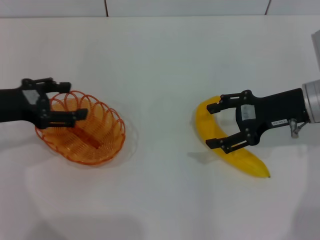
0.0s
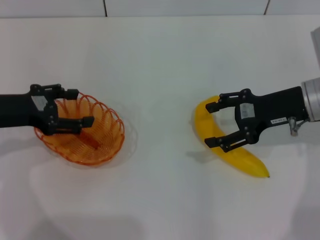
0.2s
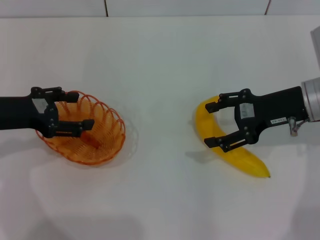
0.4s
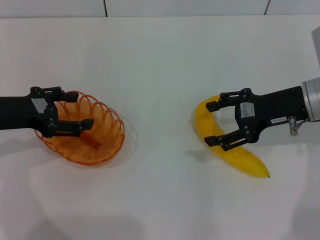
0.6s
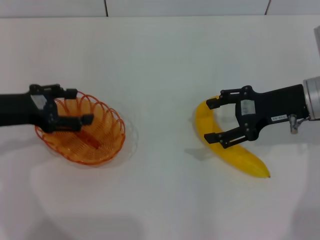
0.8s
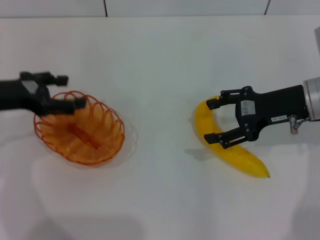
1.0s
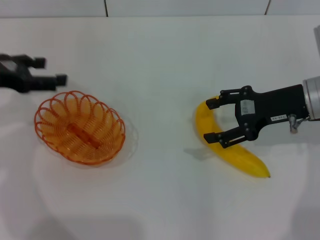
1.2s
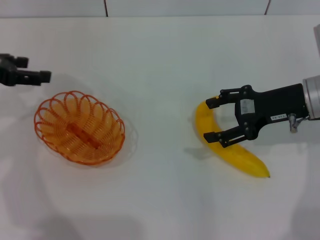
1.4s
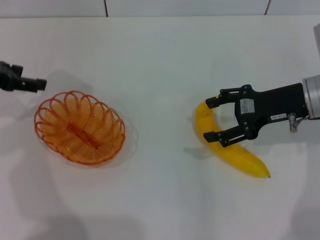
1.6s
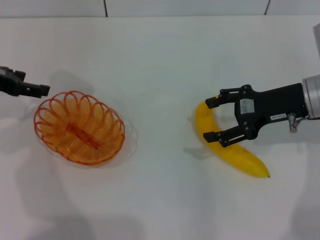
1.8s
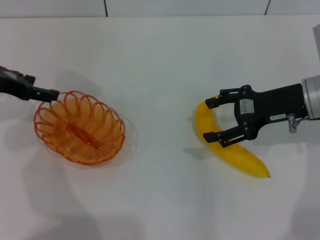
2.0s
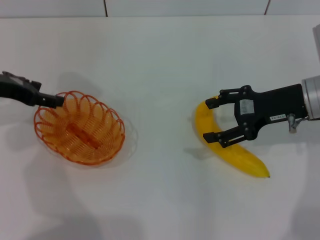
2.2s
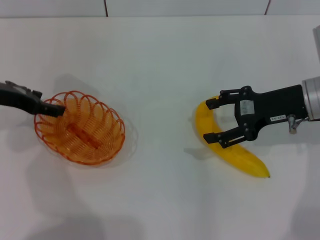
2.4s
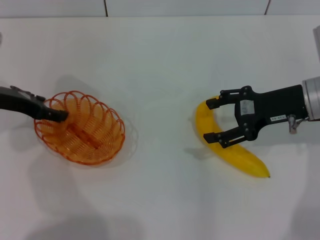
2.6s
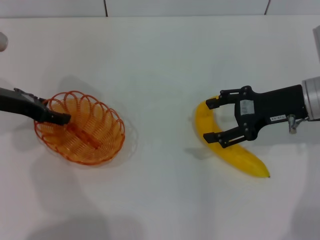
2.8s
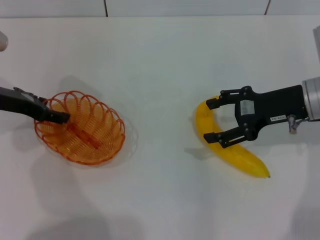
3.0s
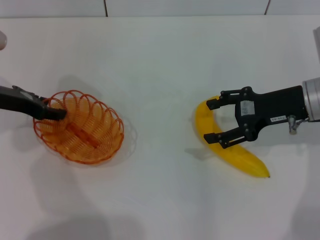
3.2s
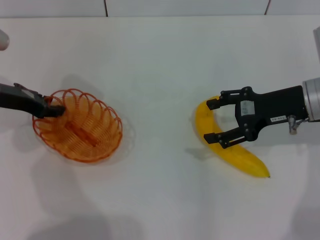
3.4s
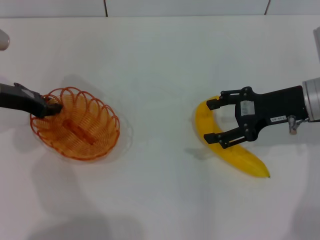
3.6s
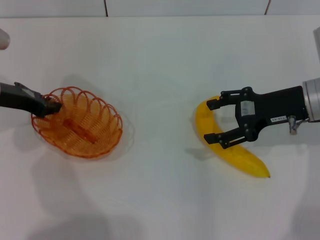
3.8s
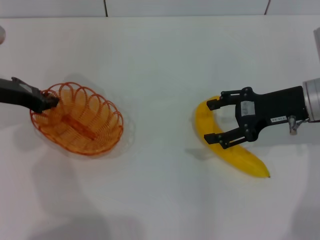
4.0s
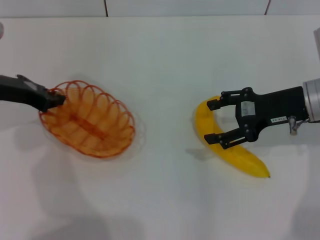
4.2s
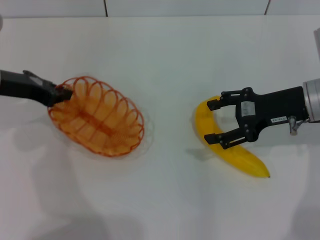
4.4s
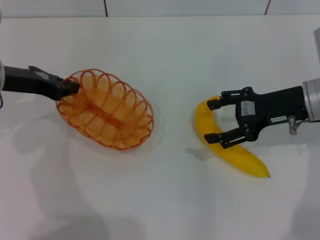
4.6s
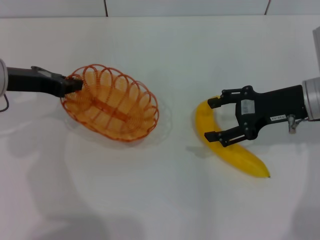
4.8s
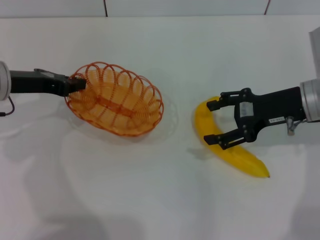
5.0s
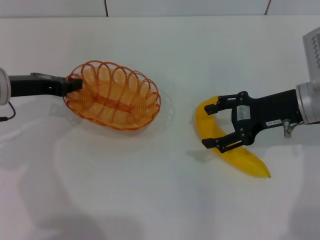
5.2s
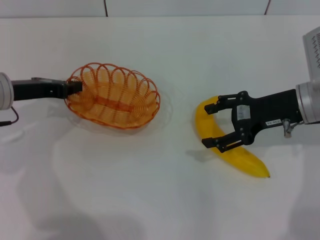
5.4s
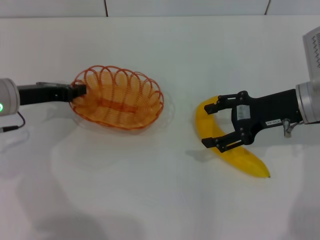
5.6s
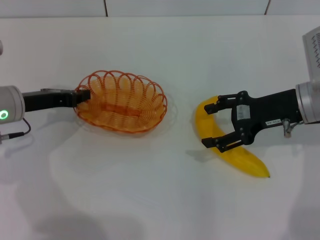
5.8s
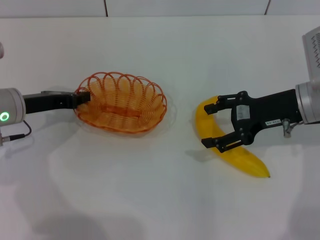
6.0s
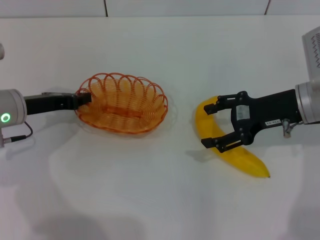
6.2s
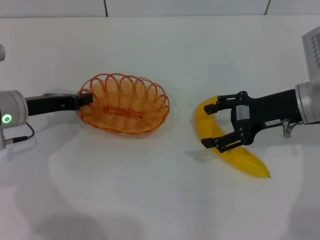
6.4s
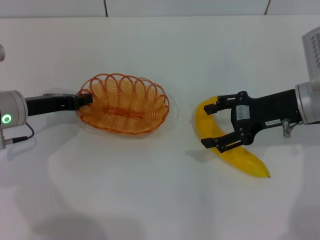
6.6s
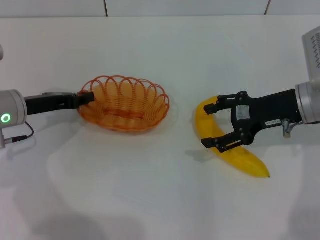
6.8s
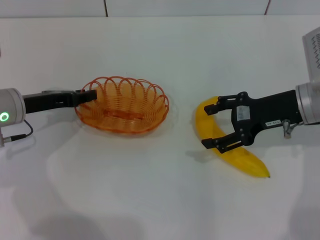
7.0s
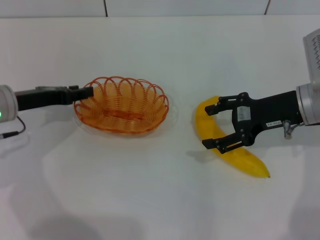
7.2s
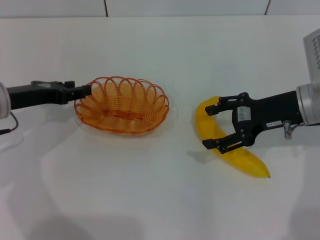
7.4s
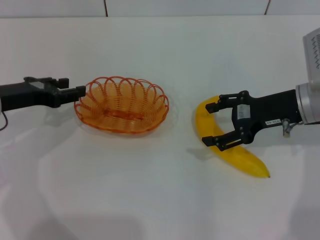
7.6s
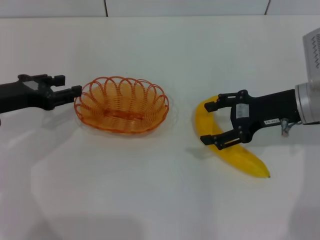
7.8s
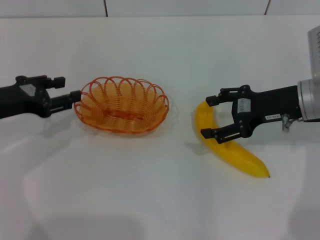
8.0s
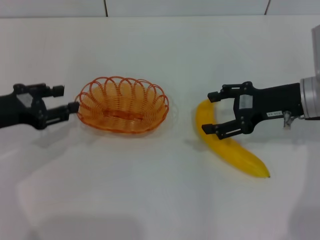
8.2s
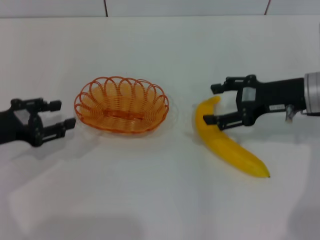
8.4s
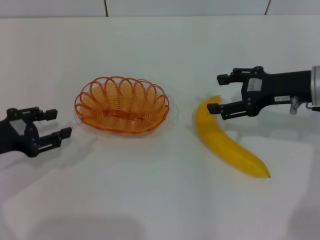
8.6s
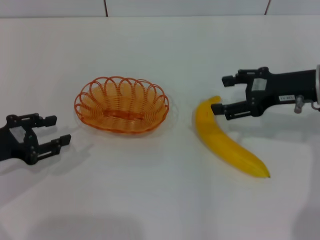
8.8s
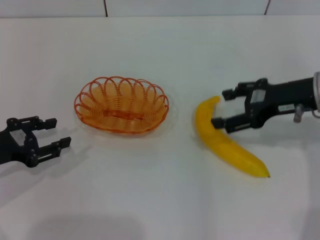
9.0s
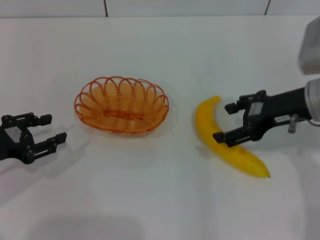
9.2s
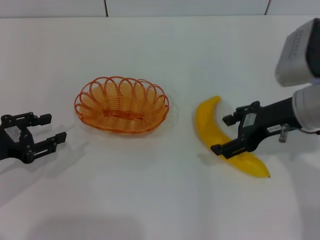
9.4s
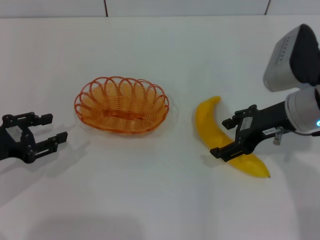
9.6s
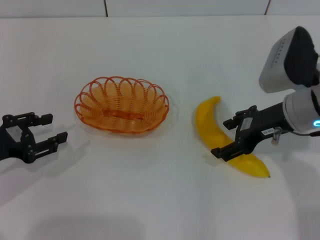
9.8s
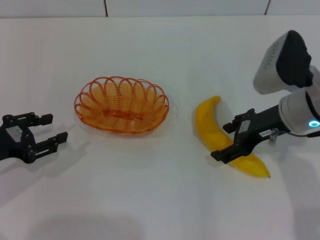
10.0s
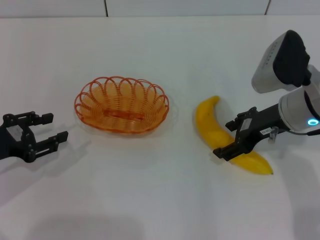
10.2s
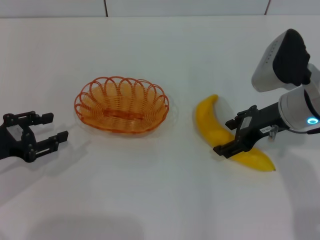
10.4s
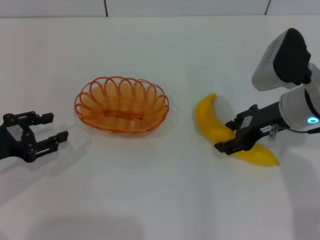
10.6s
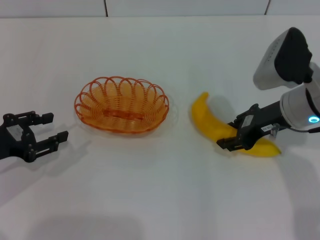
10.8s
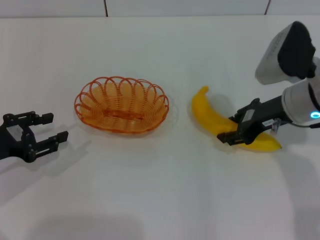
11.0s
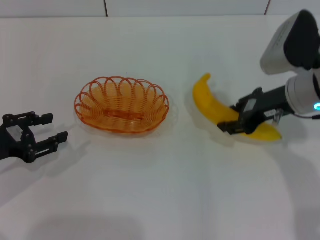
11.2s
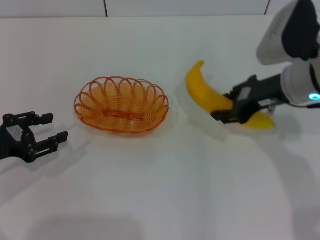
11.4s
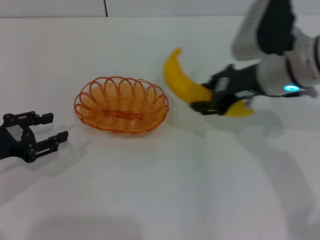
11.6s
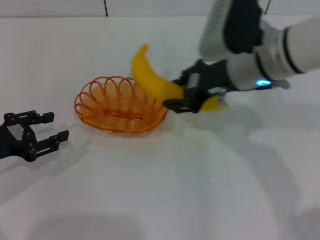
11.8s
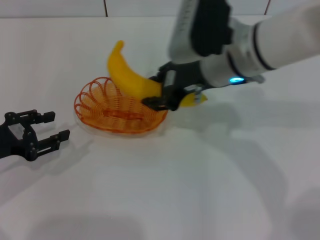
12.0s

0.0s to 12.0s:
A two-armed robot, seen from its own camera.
Step, 0.0s to 4.2s: Pick up the basket with the left gripper.
Step, 4.4s to 8.4s: Place the basket in the center of view with the left gripper.
Step, 8.6s to 11.0s: Pick up the banana with the right gripper.
0.0s to 1.6s: The left gripper ends up roughly 5 cm from where it was.
1.6s to 3.0s: The left gripper moves downward, roughly 5 cm.
3.0s to 4.4s: The left gripper closes.
4.4s to 6.0s: The left gripper moves downward, about 5 cm.
6.0s to 7.6s: The left gripper opens up.
7.6s to 9.0s: The left gripper heads backward, covering approximately 5 cm.
10.4s to 12.0s: The right gripper heads to the left and upward, covering some 15 cm, and closes its fingers.

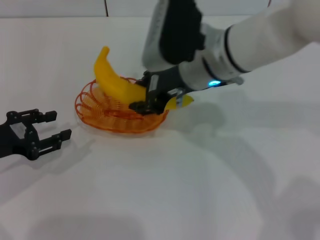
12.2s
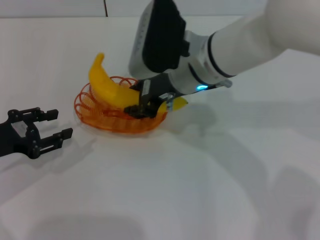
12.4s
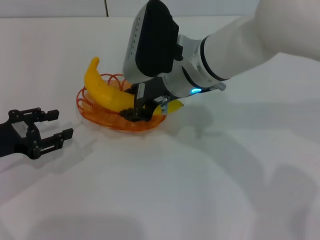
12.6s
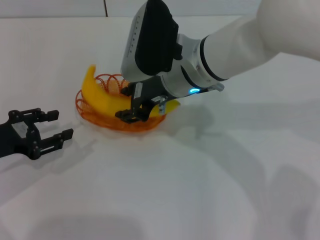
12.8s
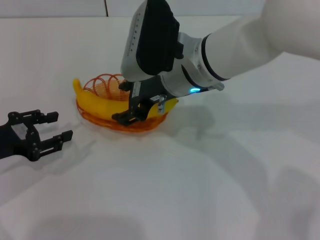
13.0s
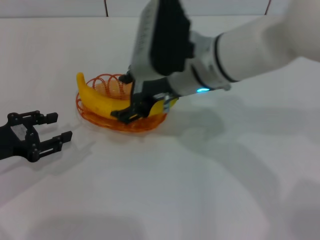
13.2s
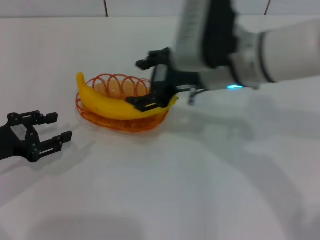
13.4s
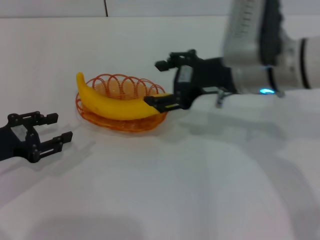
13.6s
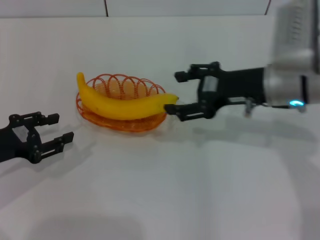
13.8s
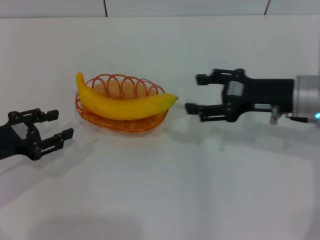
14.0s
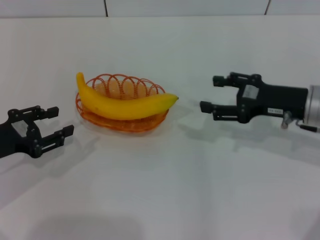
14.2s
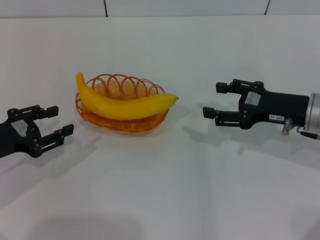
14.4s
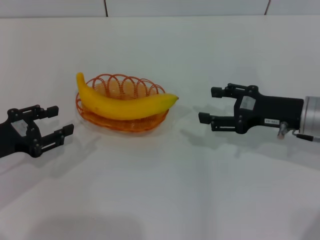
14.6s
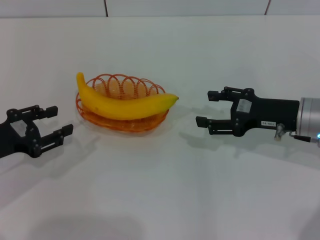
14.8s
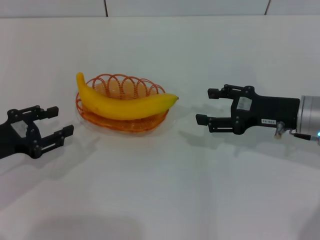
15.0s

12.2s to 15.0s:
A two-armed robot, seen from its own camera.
Step, 12.2s to 13.8s: Place the banana into the basket with the right gripper.
12.2s to 13.6s: The right gripper moves to the right, approximately 5 cm, and opens its fingers.
13.6s to 15.0s: The right gripper travels to the right and downward by about 15 cm.

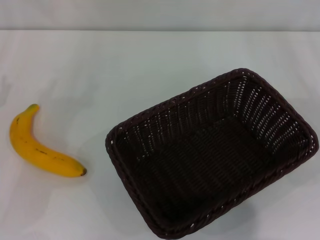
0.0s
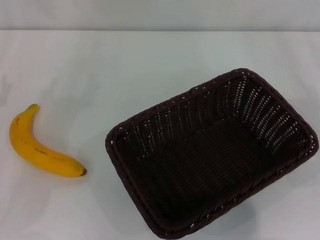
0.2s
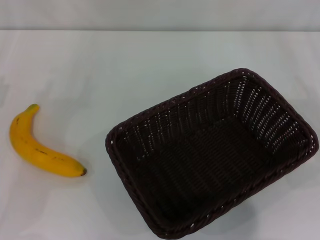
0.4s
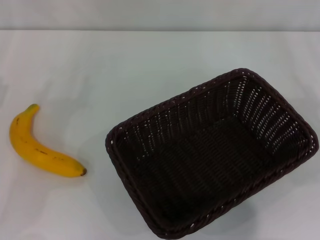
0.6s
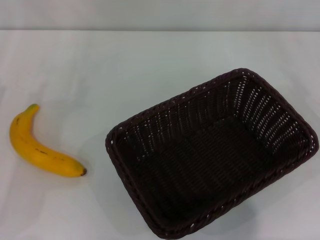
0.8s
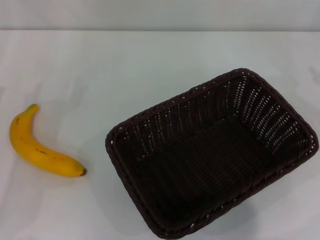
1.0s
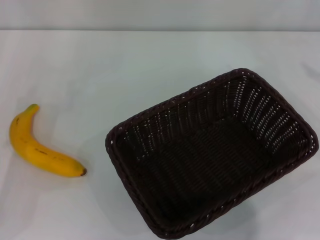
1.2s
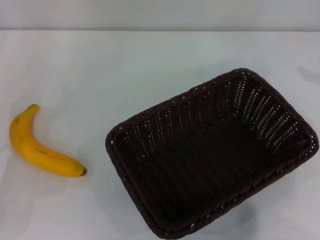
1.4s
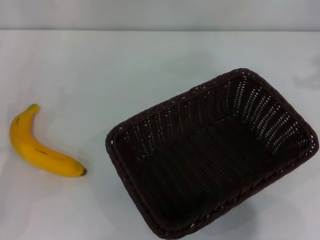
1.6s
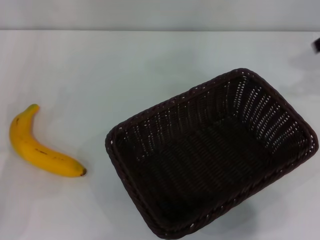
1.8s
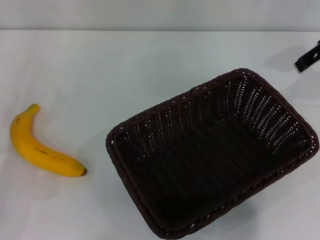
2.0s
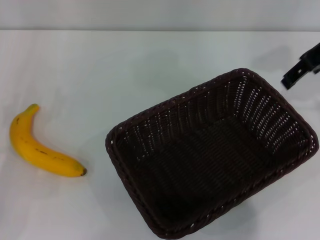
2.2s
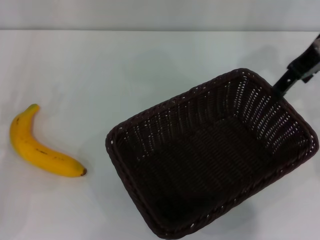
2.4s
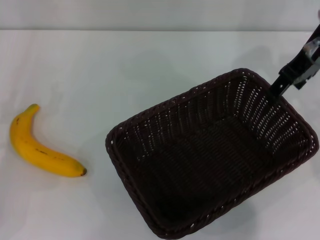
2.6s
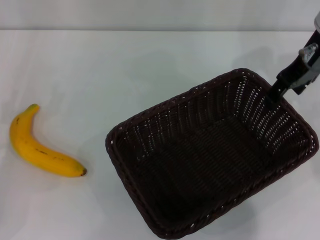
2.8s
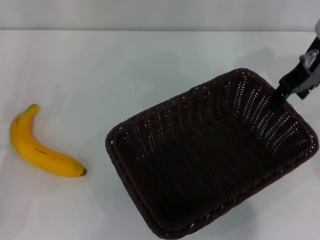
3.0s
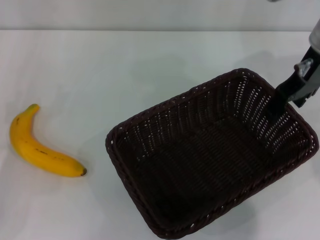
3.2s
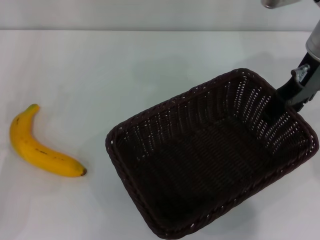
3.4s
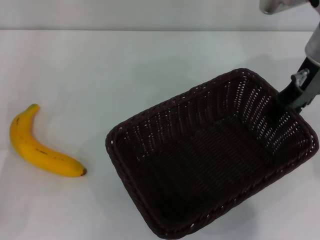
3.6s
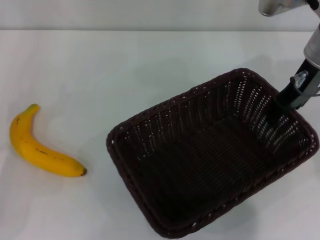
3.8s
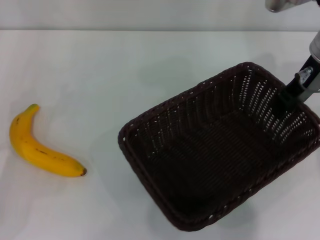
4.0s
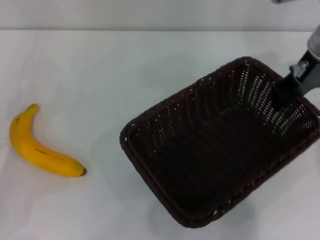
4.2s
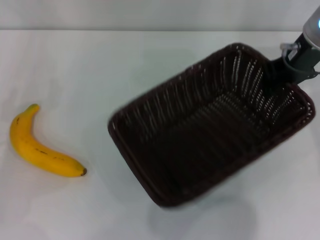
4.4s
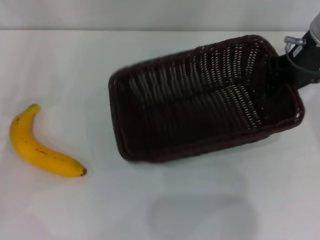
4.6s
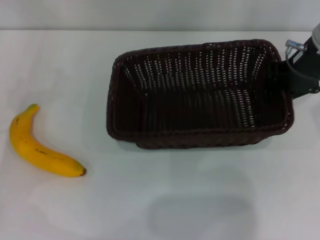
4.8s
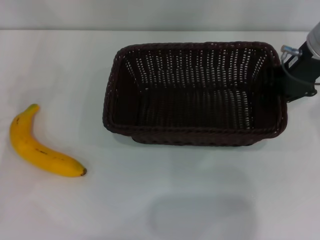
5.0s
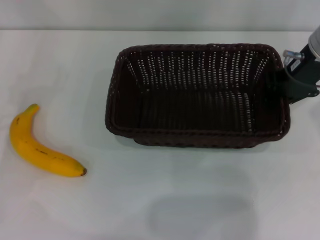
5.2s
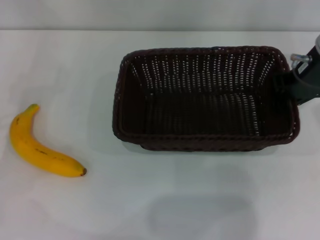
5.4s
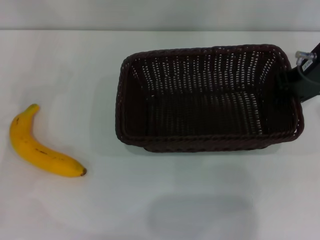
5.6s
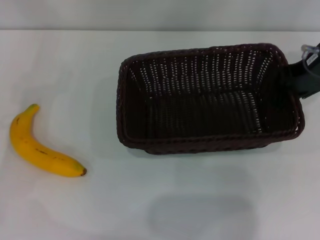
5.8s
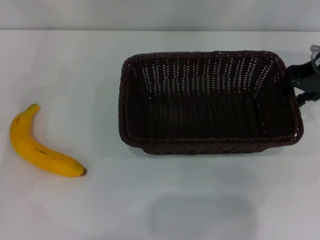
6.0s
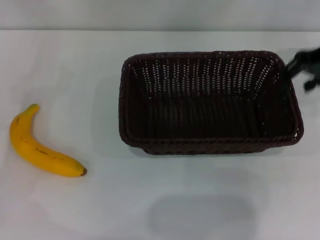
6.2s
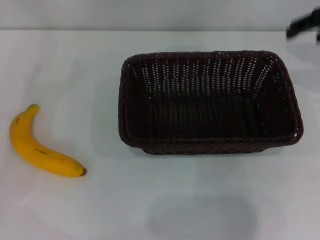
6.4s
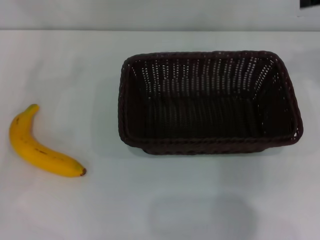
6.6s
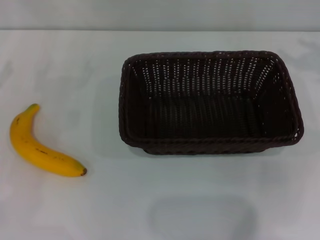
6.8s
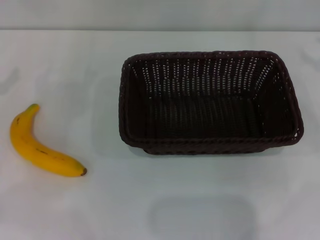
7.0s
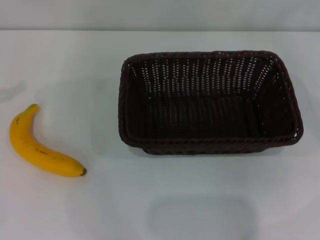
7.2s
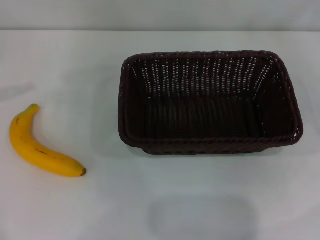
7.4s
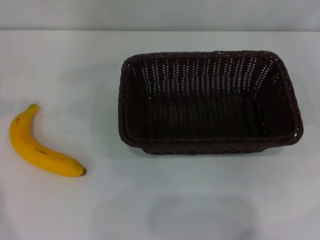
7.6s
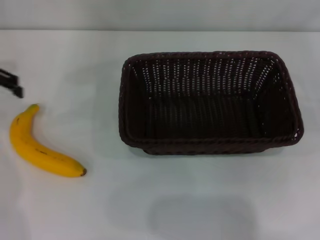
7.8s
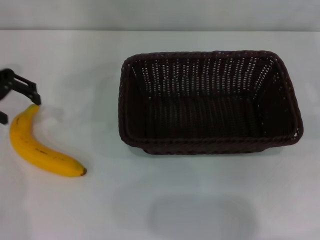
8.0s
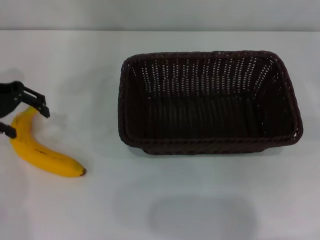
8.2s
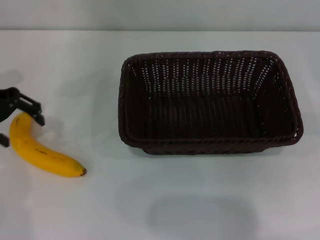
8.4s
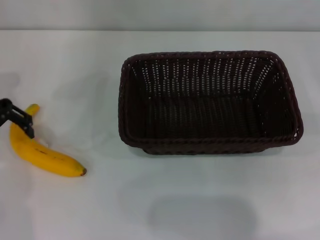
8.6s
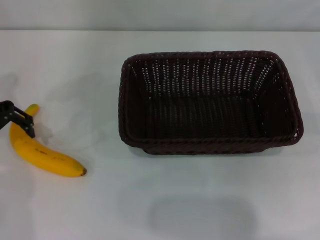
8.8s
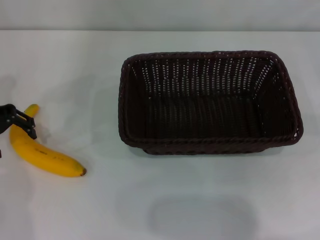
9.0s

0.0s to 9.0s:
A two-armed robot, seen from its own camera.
Step, 0.0s to 4.2s: Pick up the dark basket with the right gripper.
Step, 4.4s to 6.2s: Place the dark basket in the center of view with the right gripper.
1.6s to 3.0s: The right gripper goes roughly 15 cm to the left and downward.
3.0s to 4.4s: The right gripper closes up.
4.4s to 6.0s: There are only small adjustments of the grippers.
6.0s to 7.6s: The right gripper goes roughly 20 cm to the right and downward, and opens up.
7.6s to 9.0s: The left gripper travels downward and to the right by roughly 10 cm.
